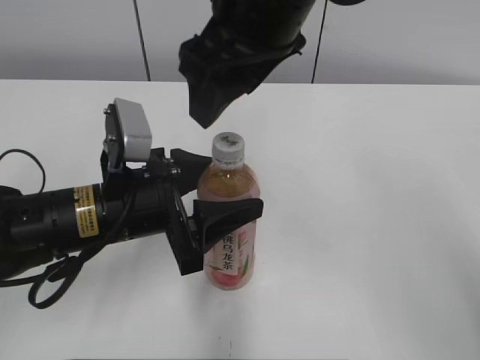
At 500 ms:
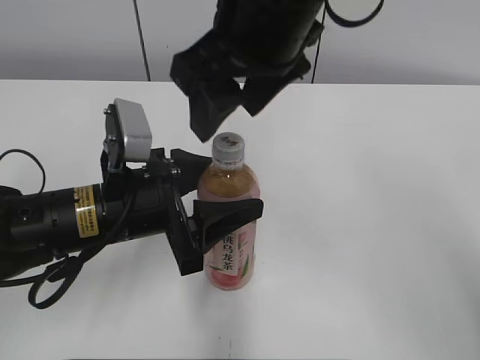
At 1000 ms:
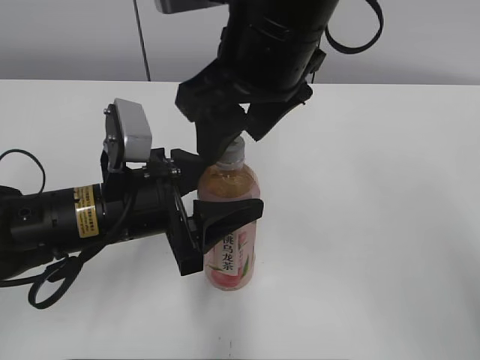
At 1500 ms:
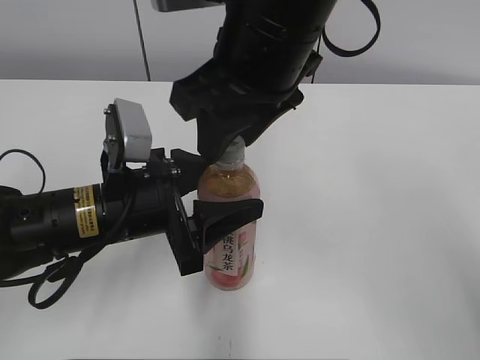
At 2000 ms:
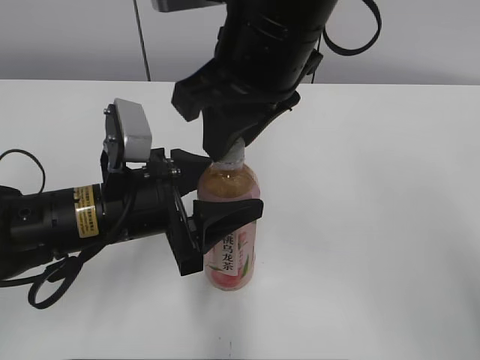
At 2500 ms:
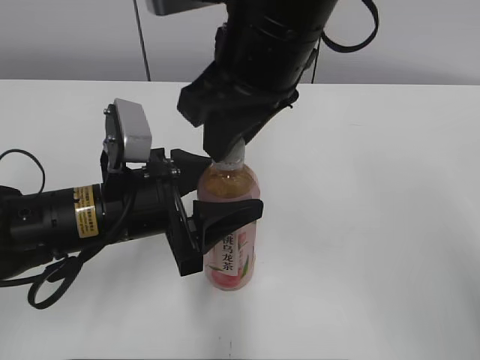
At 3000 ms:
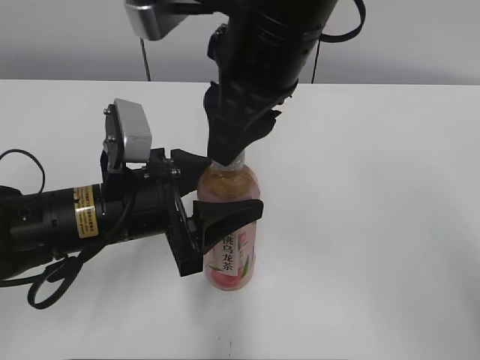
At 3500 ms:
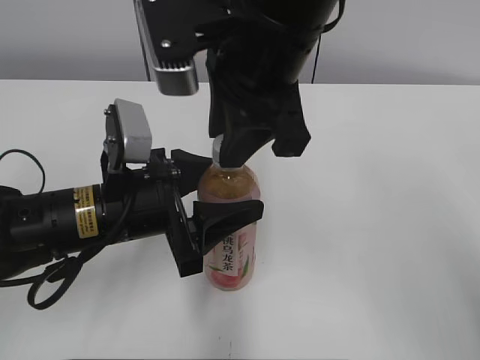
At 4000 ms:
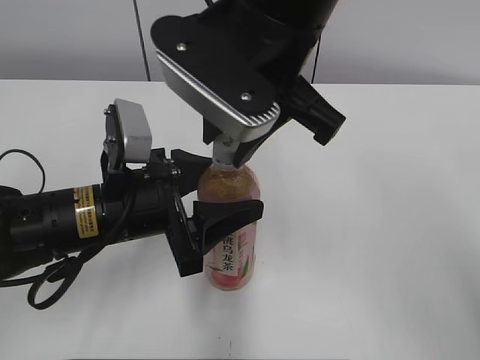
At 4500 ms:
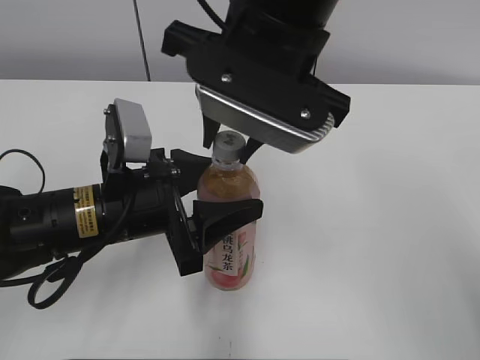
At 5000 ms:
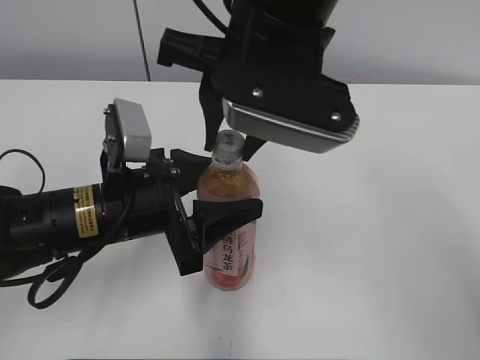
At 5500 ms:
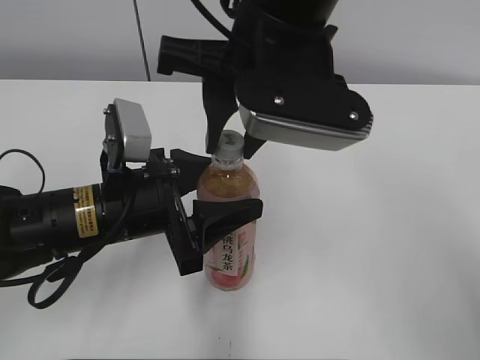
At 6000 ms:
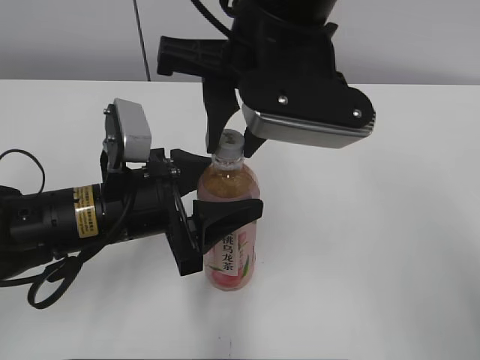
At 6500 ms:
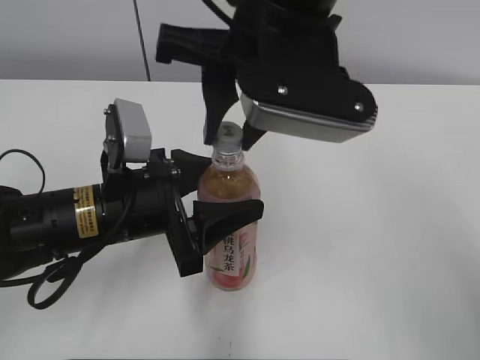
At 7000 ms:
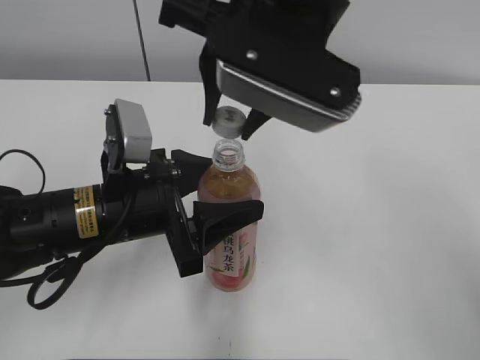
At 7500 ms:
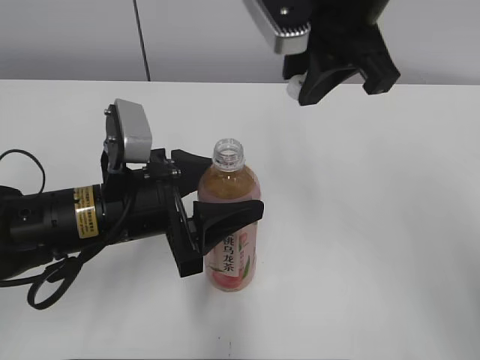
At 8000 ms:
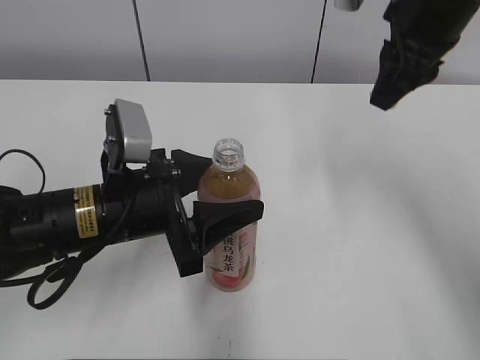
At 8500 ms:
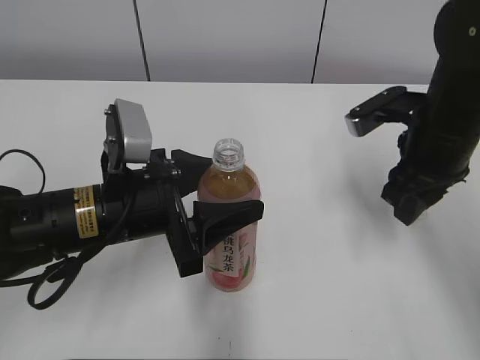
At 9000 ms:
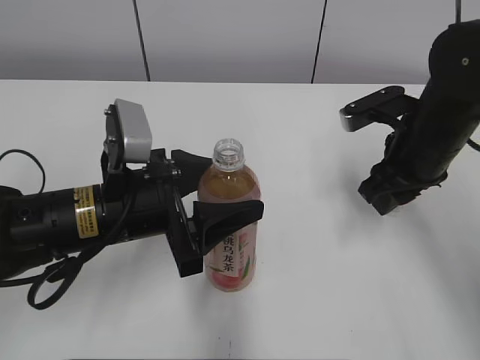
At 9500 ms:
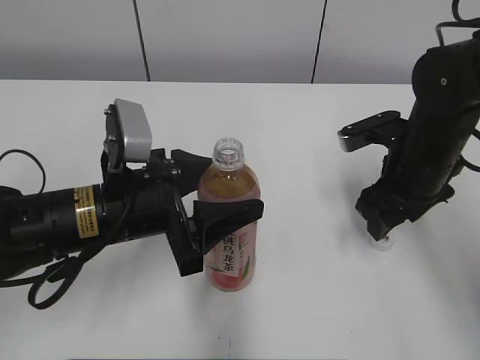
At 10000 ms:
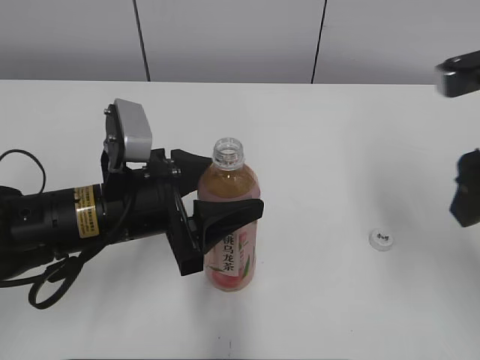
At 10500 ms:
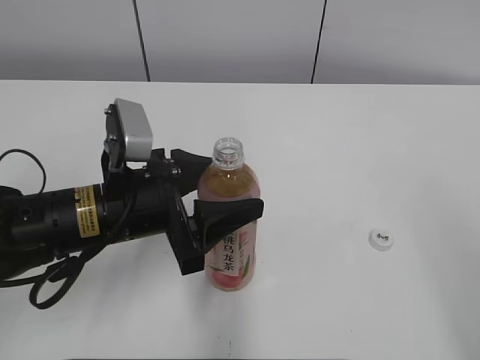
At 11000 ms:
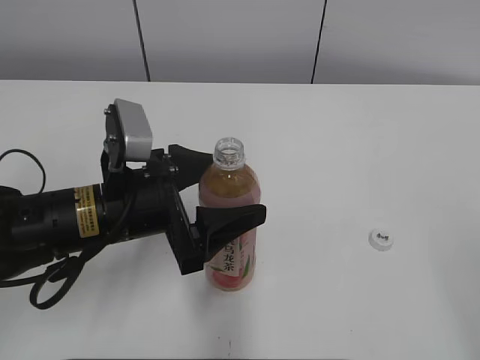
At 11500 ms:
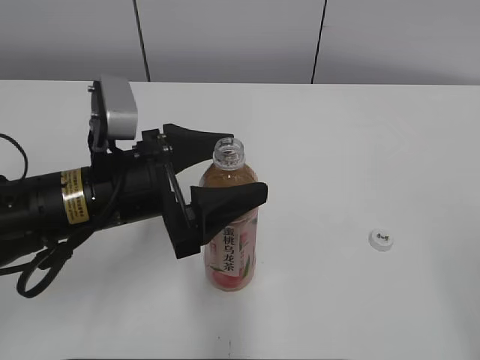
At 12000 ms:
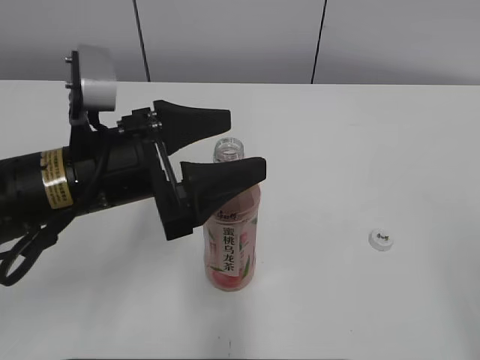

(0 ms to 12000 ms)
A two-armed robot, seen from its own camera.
Step, 6500 ms - 9000 ms: Place the bottle cap on the right.
0 ms - 2000 ms: The right gripper closes up.
6000 ms - 8000 ms: The right gripper goes approximately 15 cm to the right and forward.
8000 ms - 10000 ms: The right gripper heads backward and to the right, covering some 15 cm, goes downward and returns, about 15 cm each way, and opens.
10000 ms - 12000 ms: The right gripper shifts roughly 20 cm backward, while the left gripper ends up some 5 cm from where it was, and opens up.

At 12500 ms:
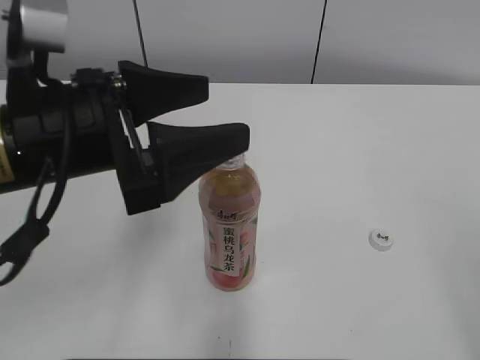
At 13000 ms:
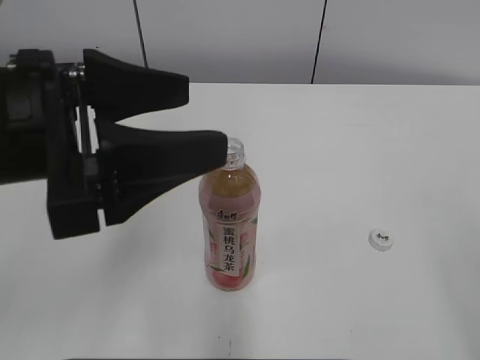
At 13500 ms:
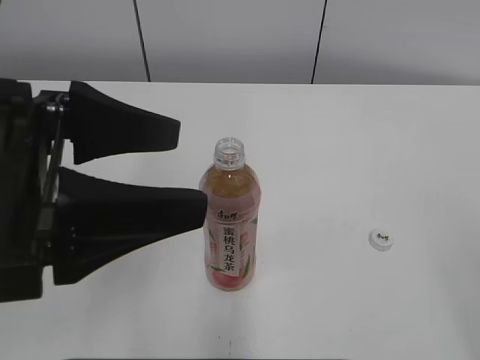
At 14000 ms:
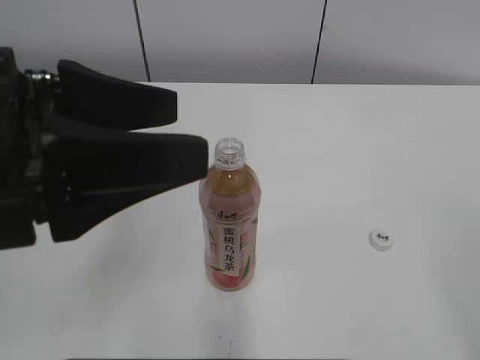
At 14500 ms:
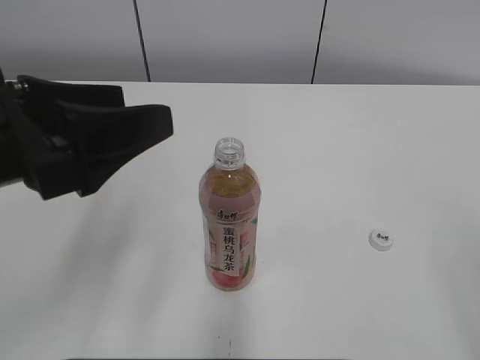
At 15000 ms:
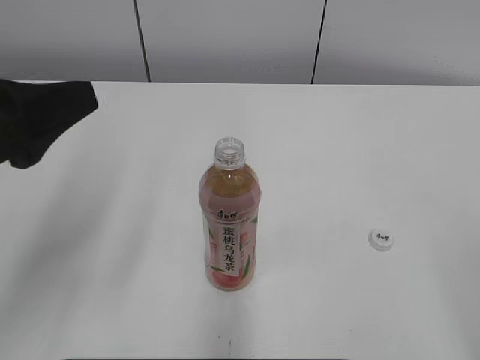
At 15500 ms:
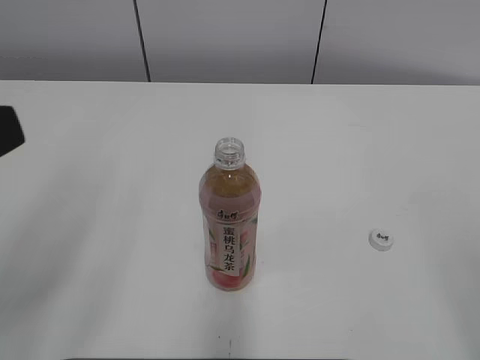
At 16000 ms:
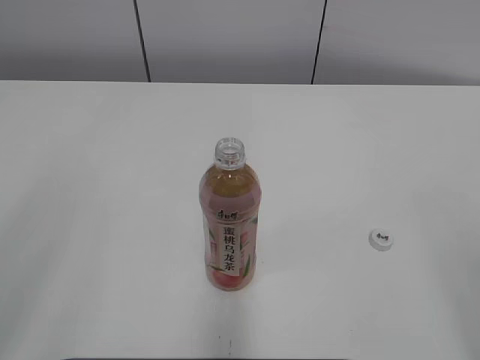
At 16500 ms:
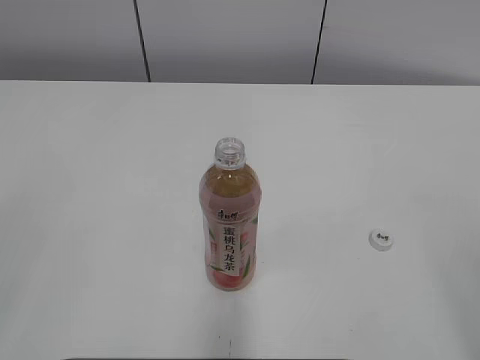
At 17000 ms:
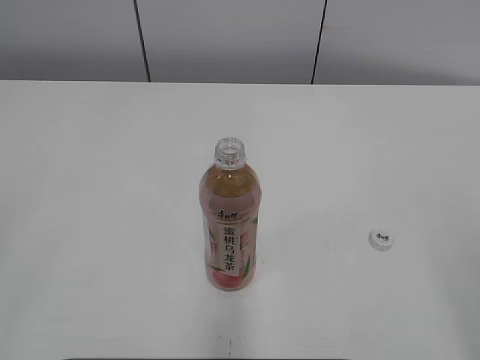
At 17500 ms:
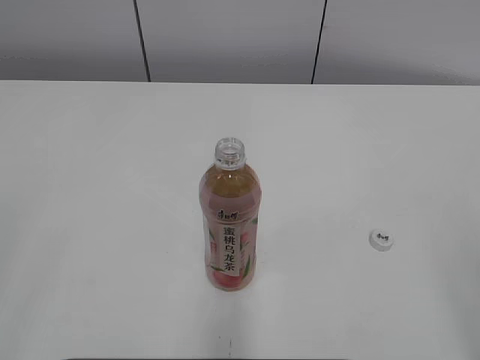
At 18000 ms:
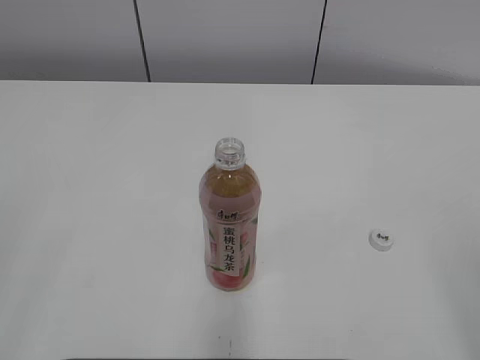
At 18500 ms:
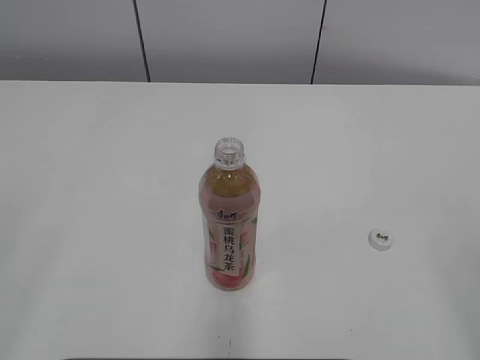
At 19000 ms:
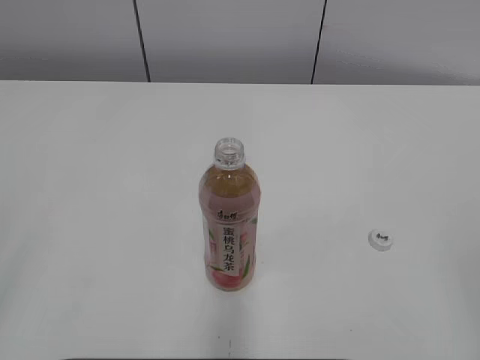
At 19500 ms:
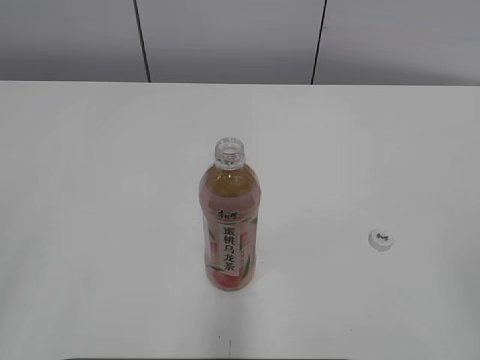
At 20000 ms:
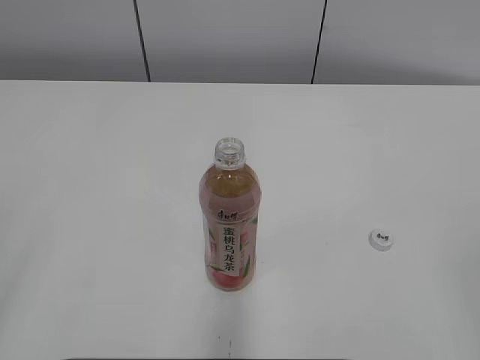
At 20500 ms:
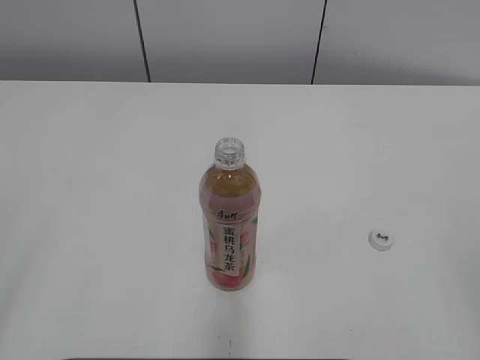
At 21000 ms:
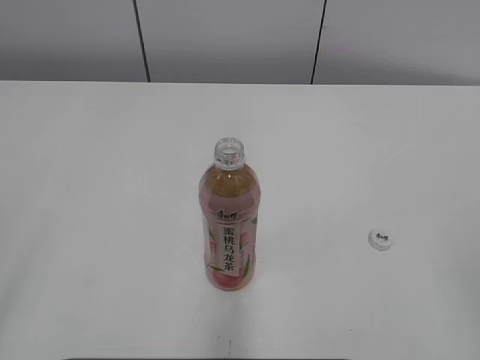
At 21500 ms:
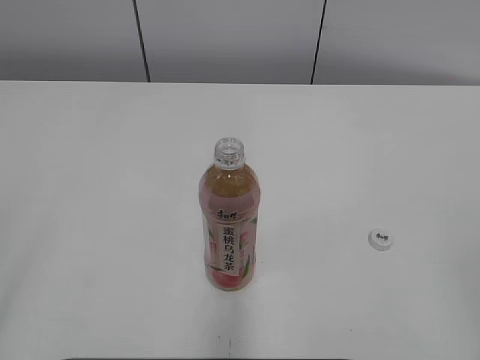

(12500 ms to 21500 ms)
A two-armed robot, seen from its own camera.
12500 ms - 14500 ms: The left gripper shifts by some 5 cm.
14500 ms - 17000 ms: The left gripper heads backward and to the left, covering approximately 25 cm.
19500 ms - 21500 ms: Neither gripper changes place.
